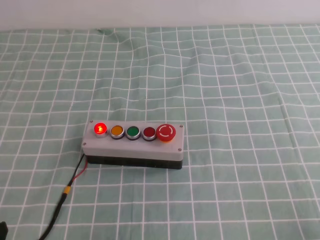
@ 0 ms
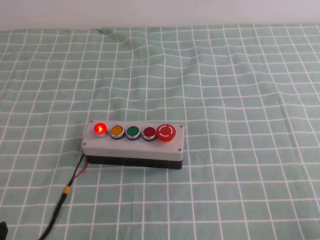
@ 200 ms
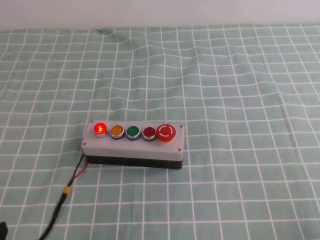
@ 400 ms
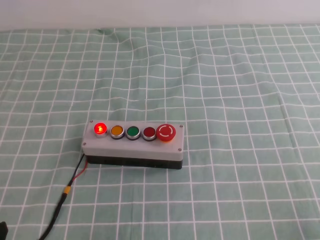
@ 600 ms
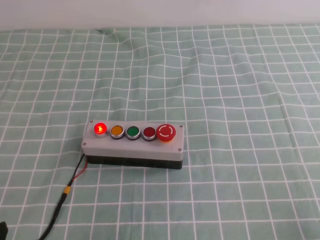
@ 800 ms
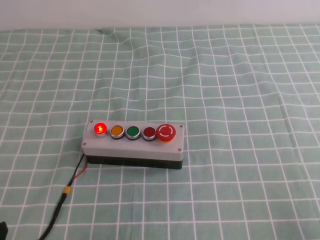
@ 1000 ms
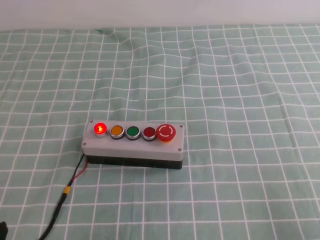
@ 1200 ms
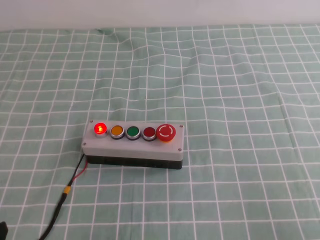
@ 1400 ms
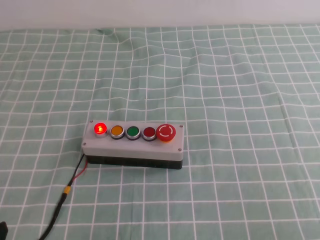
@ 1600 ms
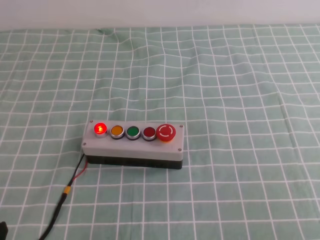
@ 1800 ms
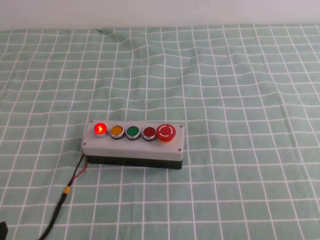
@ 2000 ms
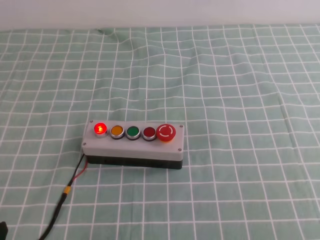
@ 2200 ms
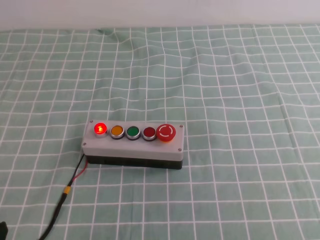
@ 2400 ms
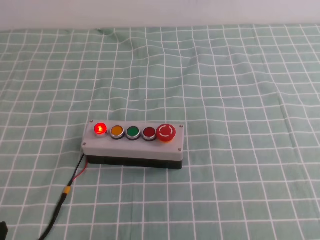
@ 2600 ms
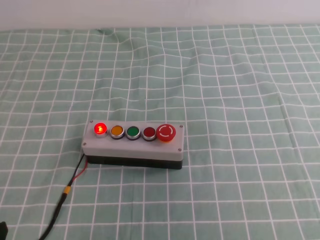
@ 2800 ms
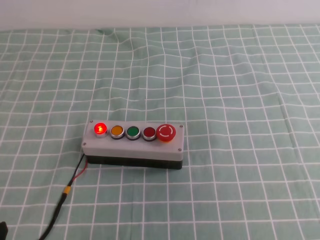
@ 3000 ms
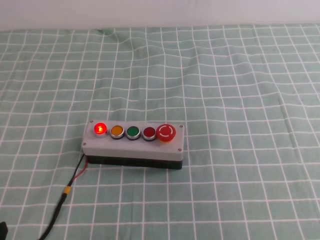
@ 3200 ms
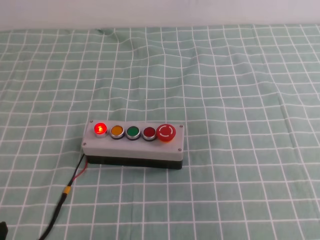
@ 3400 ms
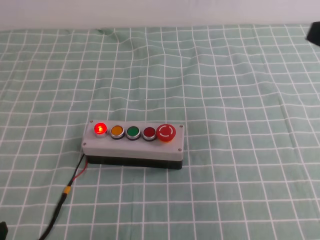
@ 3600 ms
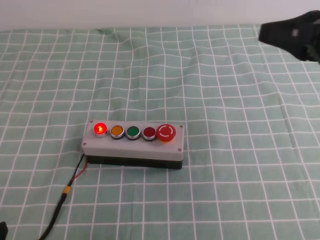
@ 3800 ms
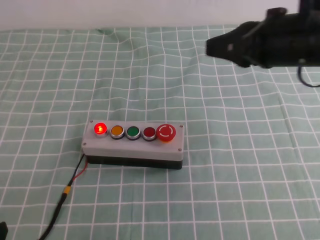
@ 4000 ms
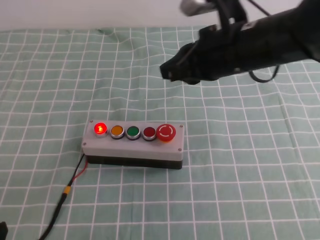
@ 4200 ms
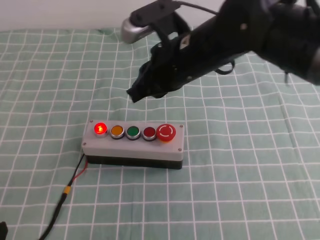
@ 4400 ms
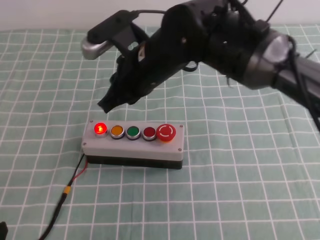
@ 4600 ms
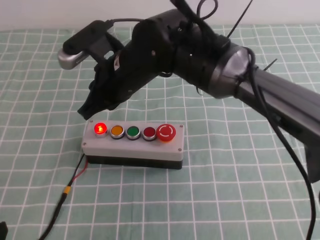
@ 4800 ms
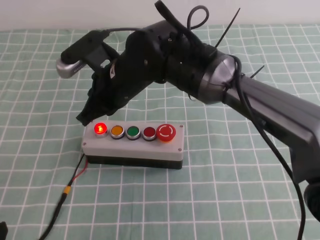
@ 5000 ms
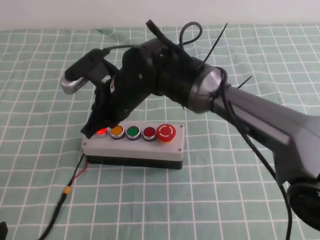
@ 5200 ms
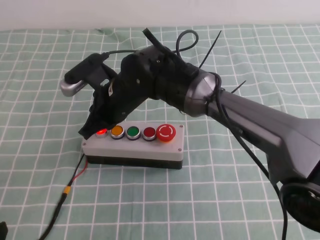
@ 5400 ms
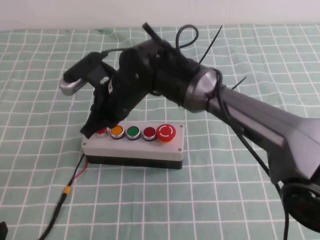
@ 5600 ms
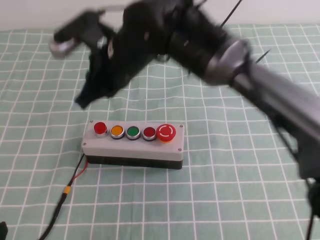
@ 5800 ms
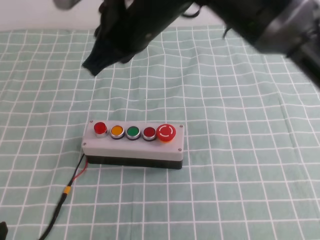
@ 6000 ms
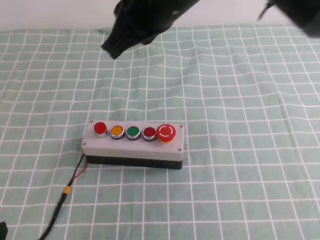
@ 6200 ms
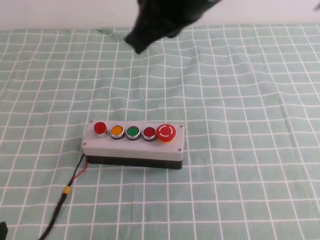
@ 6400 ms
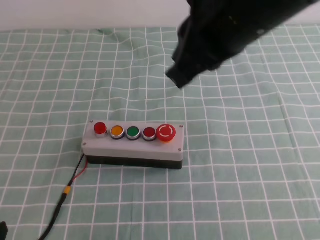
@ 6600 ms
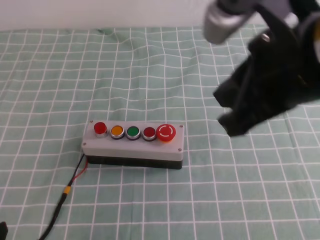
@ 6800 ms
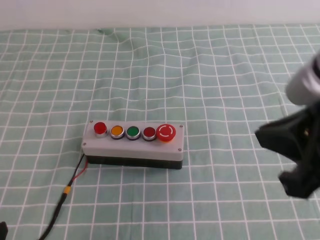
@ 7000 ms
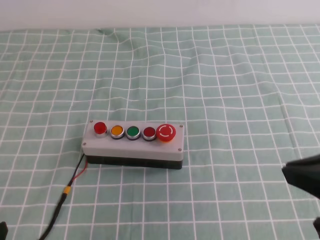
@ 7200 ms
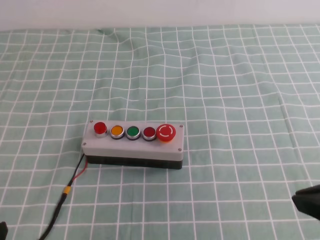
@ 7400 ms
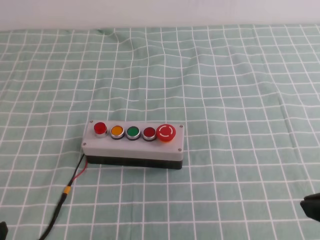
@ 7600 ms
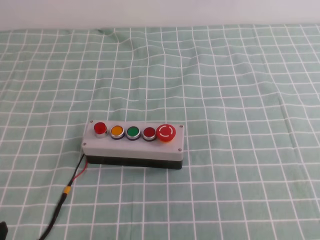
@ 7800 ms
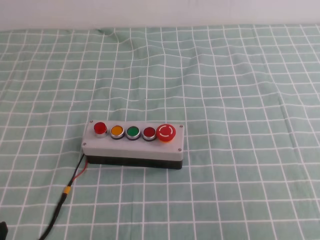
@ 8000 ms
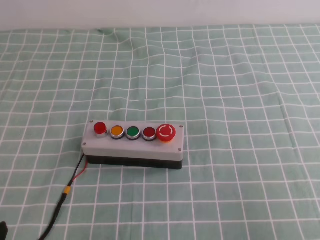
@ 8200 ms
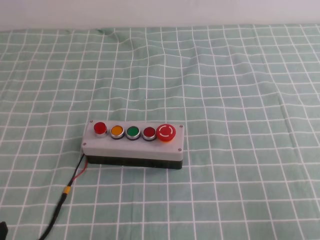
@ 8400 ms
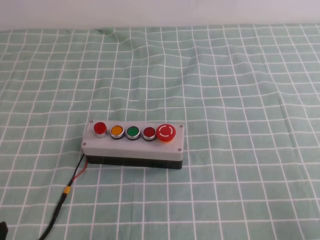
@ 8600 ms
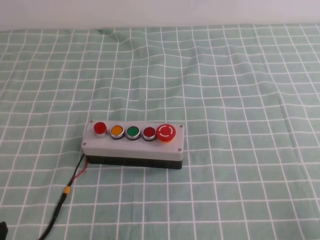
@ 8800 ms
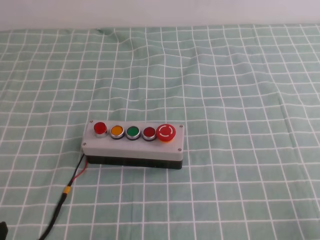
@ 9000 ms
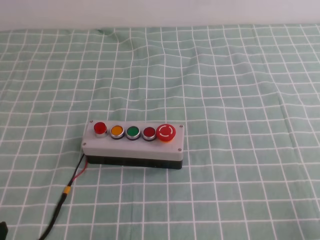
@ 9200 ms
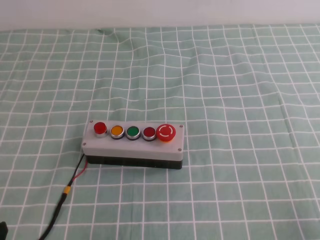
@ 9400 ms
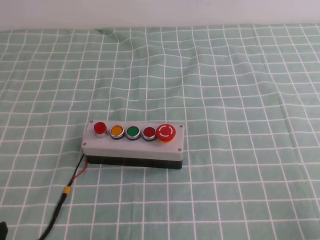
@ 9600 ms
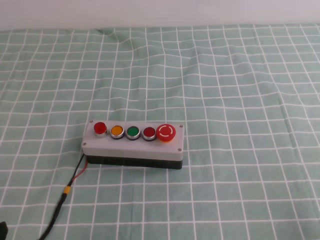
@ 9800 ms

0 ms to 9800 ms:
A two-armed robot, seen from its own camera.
Task of the whole recording: press the button switch on the cyan tablecloth with the right gripper to turn off the button.
Step, 0 ms to 9800 ms: Press the button to turn off.
2800 ms to 4200 ms: The right gripper moves forward and to the left, roughly 35 cm, and opens up.
4200 ms to 5600 ms: The right gripper shifts approximately 20 cm to the left and downward, and closes its fingers.
5600 ms to 7000 ms: The right gripper shifts roughly 35 cm to the right, backward and upward.
7000 ms to 8400 ms: The right gripper travels to the right, downward and backward by roughly 20 cm.
